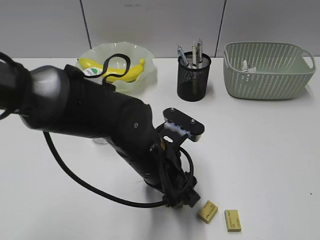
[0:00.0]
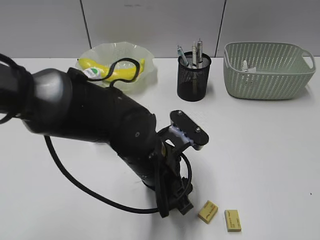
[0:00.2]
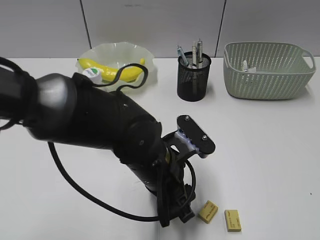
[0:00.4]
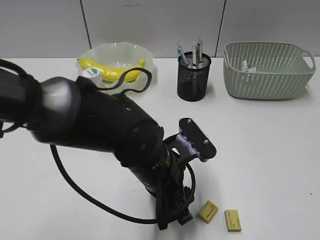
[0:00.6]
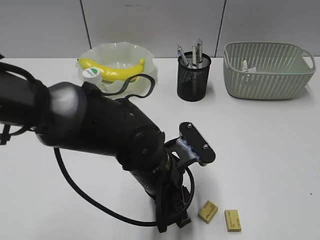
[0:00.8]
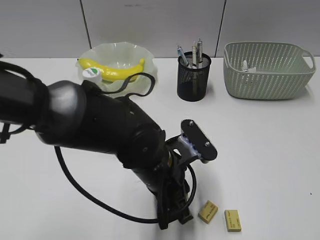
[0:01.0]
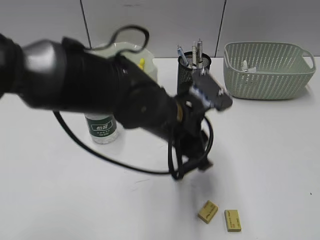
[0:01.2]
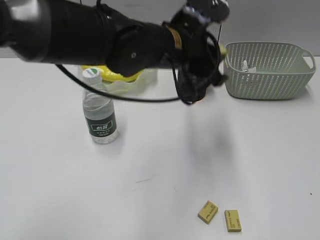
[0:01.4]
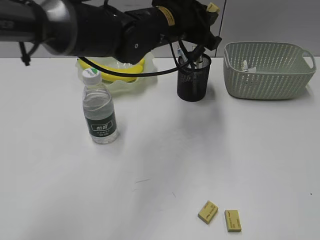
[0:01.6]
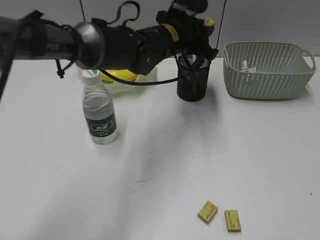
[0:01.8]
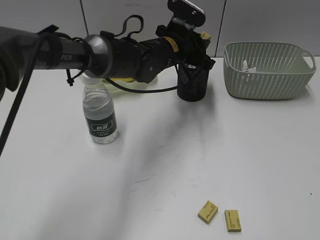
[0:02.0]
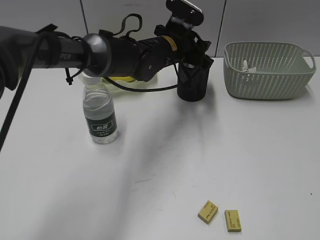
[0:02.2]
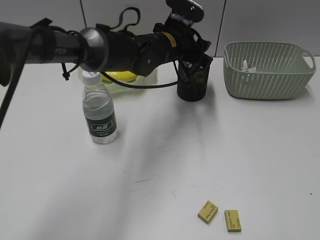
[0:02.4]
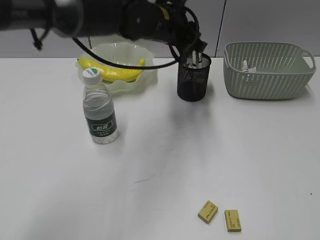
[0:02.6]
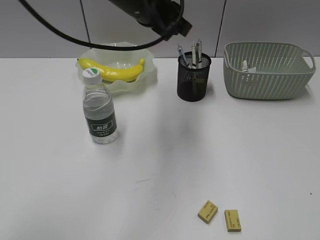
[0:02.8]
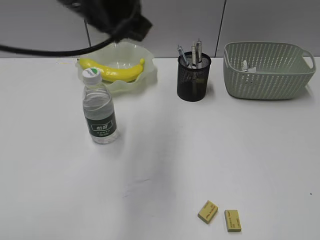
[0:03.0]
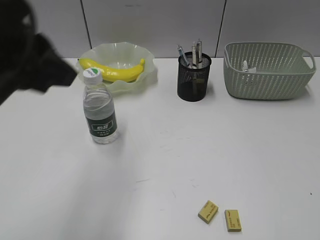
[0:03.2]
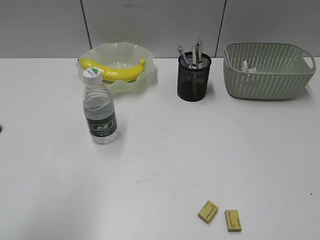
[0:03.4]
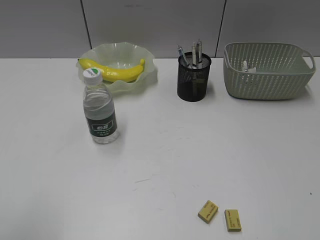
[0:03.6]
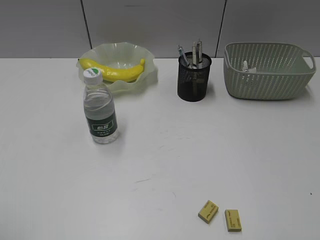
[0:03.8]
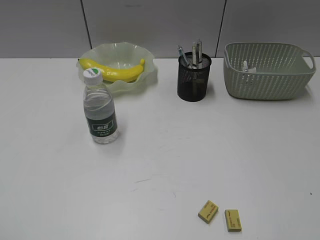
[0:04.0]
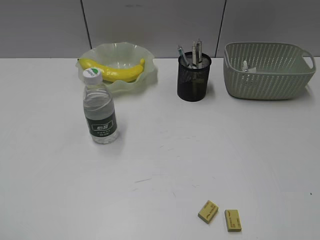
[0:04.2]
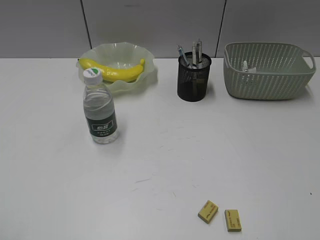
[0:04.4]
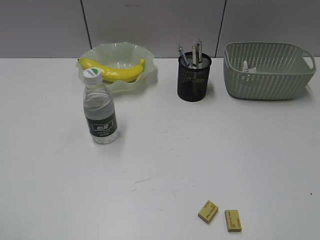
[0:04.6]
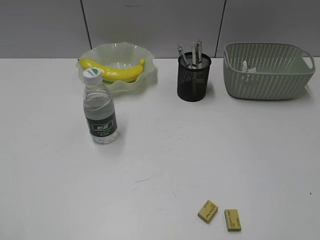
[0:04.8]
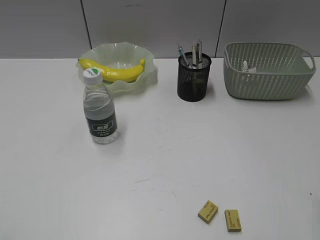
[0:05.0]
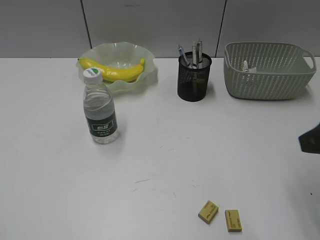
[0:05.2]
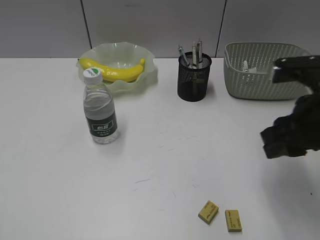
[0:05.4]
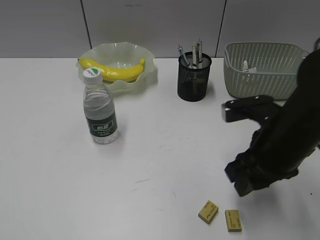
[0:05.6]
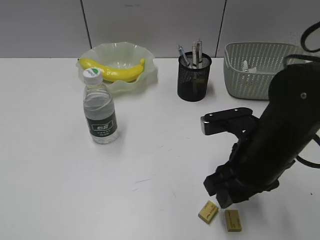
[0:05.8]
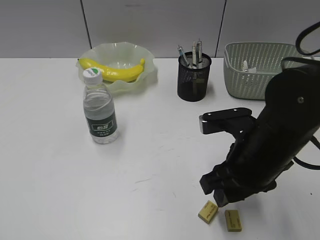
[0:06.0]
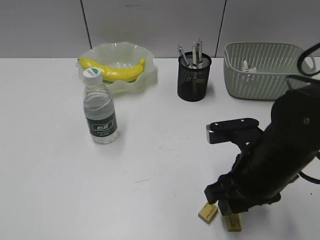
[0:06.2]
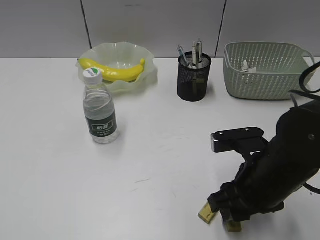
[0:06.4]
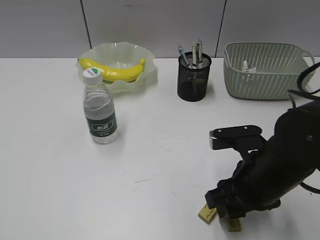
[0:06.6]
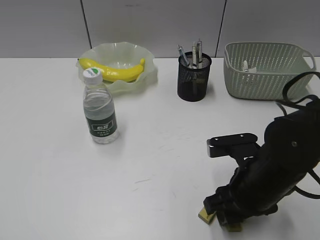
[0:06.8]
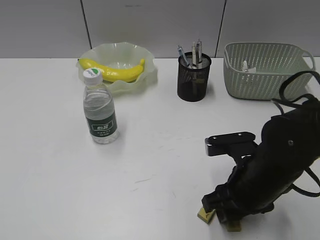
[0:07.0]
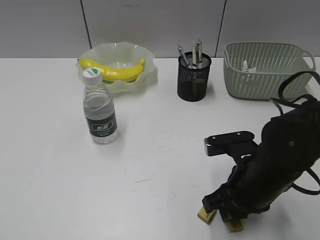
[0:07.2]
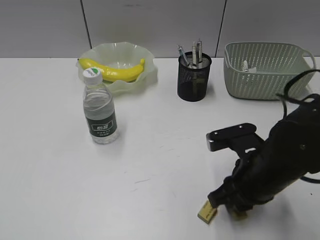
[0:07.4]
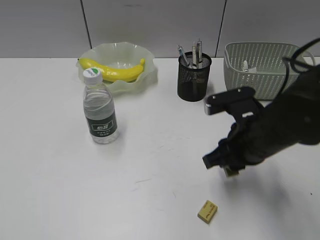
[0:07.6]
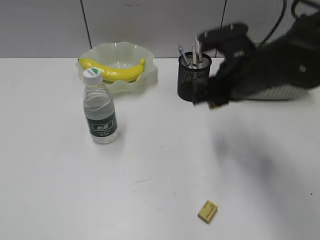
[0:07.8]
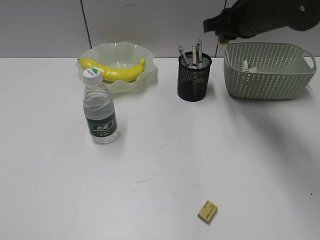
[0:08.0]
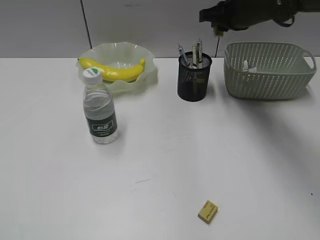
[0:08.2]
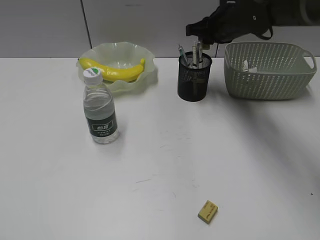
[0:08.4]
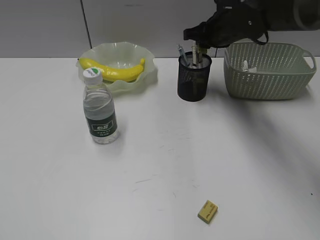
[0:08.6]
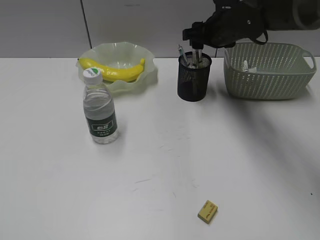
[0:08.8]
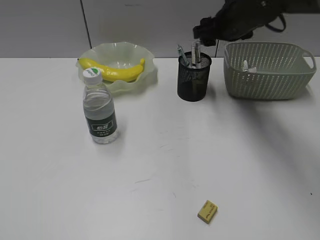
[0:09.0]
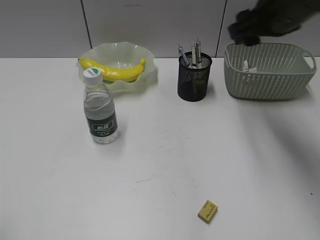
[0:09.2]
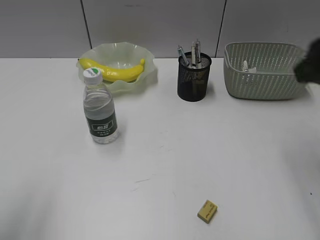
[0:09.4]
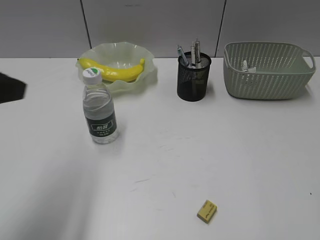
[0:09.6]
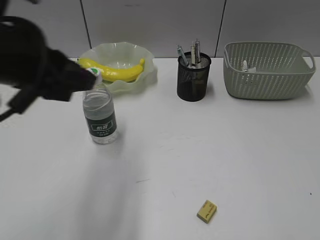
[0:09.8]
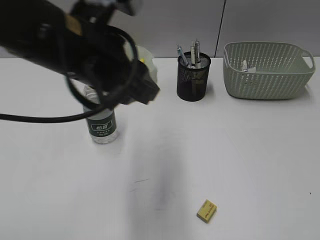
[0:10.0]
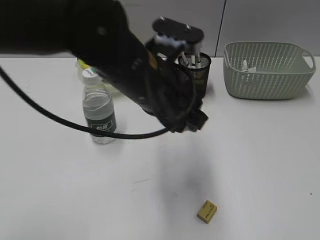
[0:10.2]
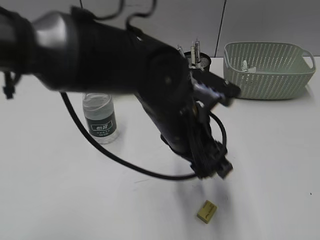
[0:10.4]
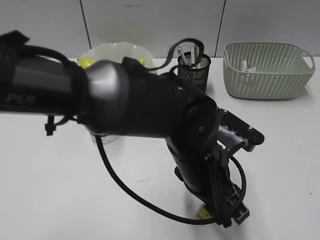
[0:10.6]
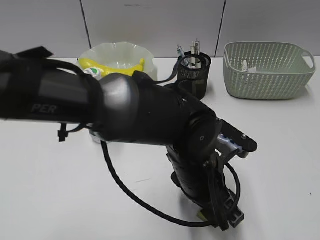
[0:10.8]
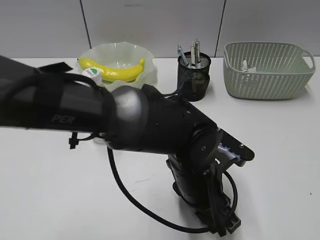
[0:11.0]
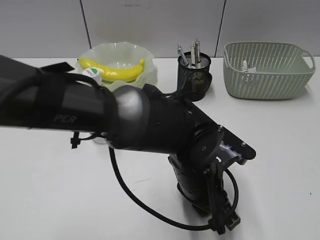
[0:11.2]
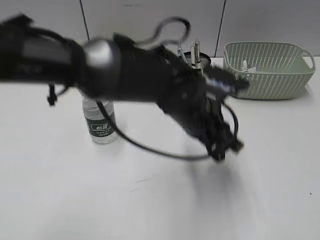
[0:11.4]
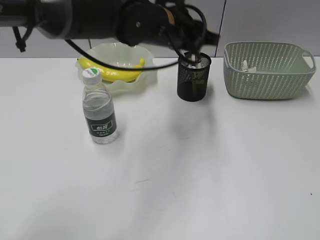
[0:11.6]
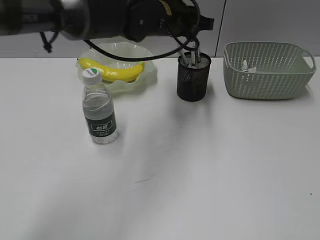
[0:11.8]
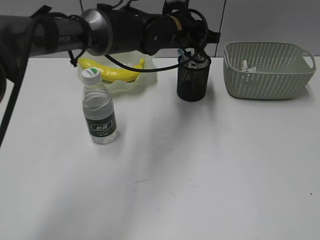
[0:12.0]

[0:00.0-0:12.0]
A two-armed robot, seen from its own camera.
Step, 0:01.0 to 0:02.4: Place the eraser in pen holder with left gripper.
Step, 0:02.6 to 0:07.2: Grasp the eraser with right gripper.
Step, 0:07.4 to 0:08.8: Place the eraser in pen holder with right gripper.
Step, 0:09.0 to 0:11.2: Grasp the eraser with left gripper.
0:00.0 to 0:01.6: The left gripper shifts some 20 cm forward and upward, and closes.
0:01.6 to 0:03.0: The left gripper shifts about 15 cm to the left, upward and backward, and opens, then closes once more.
0:03.0 to 0:04.4: The left gripper goes roughly 40 cm backward and to the left.
0:04.4 to 0:06.0: The right gripper goes roughly 30 cm forward, to the left and downward.
0:06.0 to 0:07.6: The right gripper closes its fingers.
0:07.6 to 0:09.0: The right gripper moves forward, about 20 cm, and opens up.
0:09.0 to 0:10.4: The left gripper heads to the right and forward, covering about 40 cm, and opens its fingers. Meanwhile the right gripper is displaced backward and to the right by some 50 cm.
0:10.4 to 0:12.0: The left gripper moves forward, roughly 20 cm, and closes.

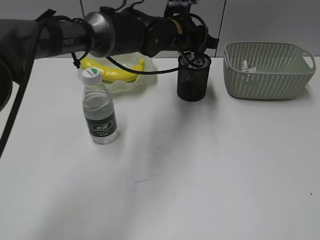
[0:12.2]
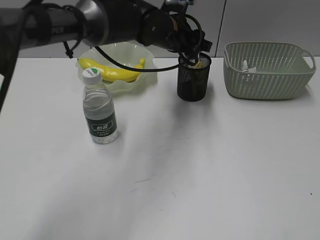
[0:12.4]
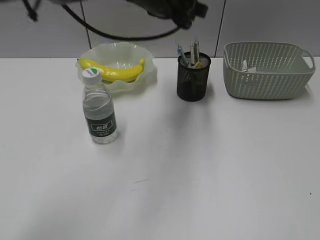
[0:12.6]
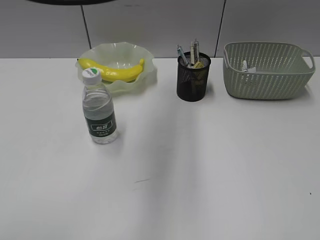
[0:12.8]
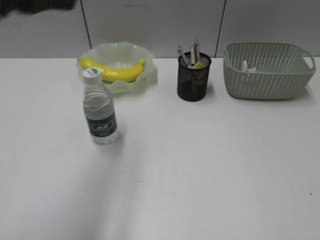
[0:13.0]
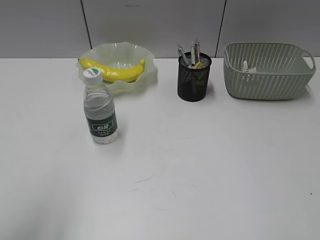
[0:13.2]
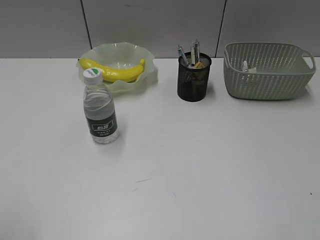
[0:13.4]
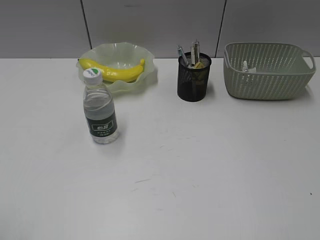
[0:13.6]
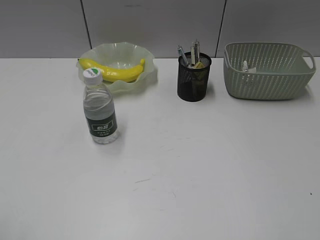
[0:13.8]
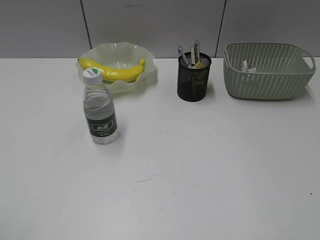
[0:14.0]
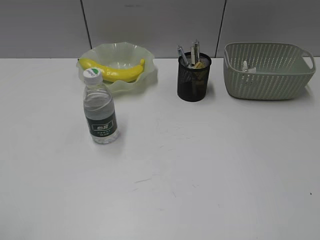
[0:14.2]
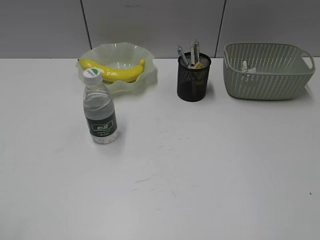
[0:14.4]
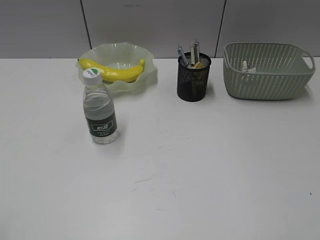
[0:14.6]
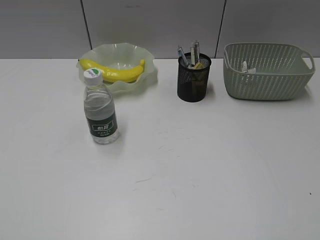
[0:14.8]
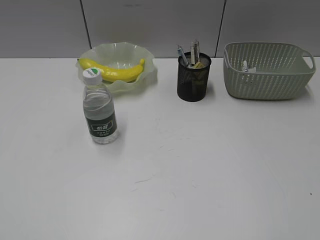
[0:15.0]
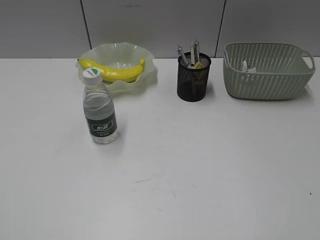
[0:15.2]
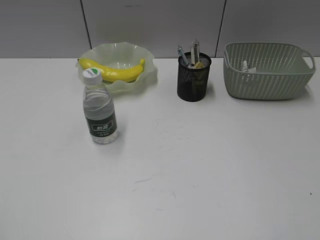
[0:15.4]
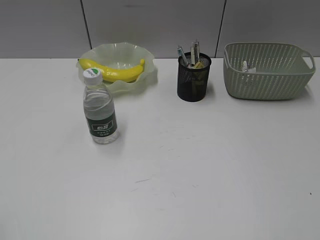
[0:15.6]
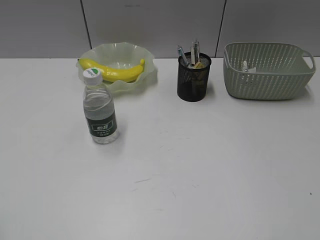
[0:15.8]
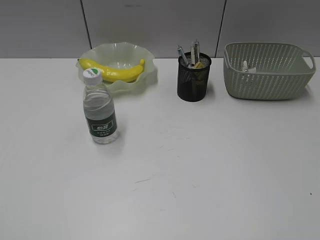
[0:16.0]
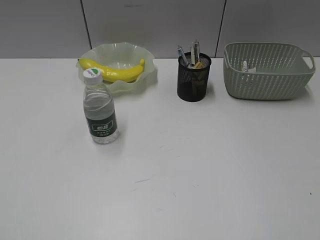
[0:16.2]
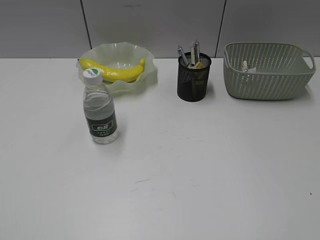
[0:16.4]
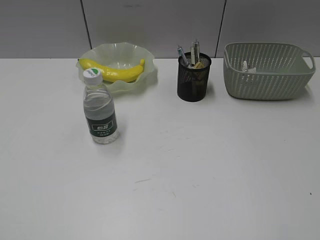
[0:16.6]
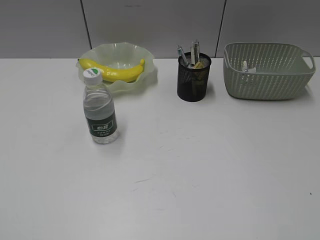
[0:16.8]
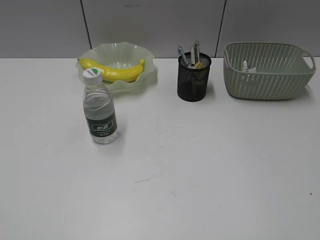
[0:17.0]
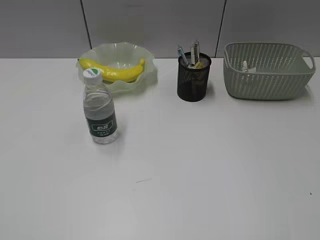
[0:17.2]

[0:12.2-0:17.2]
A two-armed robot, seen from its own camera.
0:12.2 to 0:13.8: The left gripper is displaced backward and to the left by some 60 cm.

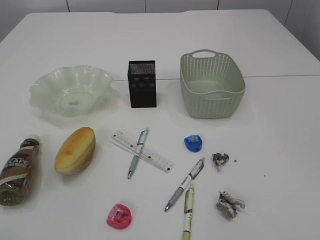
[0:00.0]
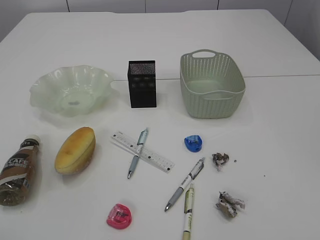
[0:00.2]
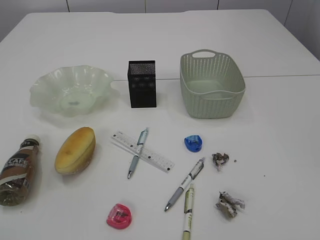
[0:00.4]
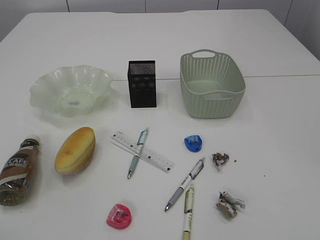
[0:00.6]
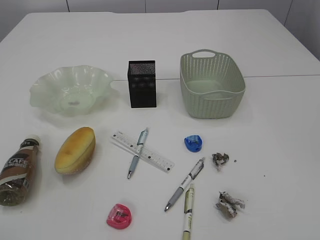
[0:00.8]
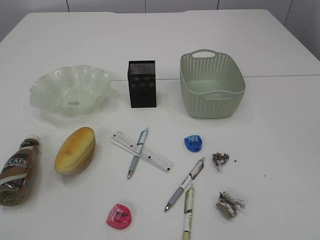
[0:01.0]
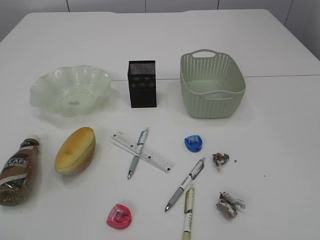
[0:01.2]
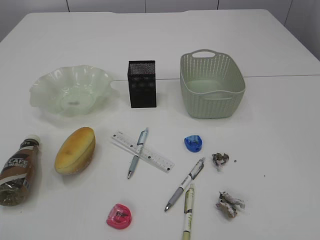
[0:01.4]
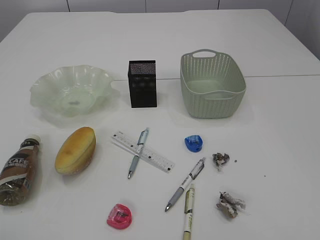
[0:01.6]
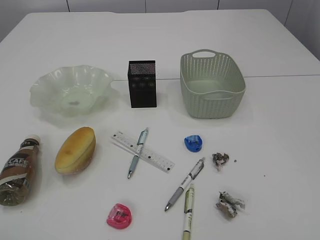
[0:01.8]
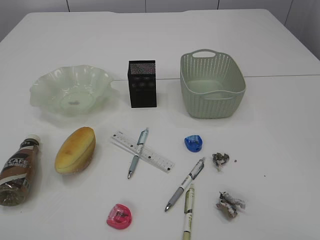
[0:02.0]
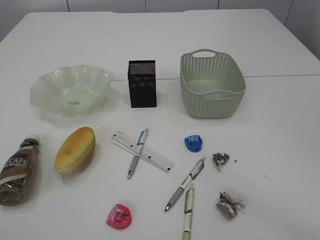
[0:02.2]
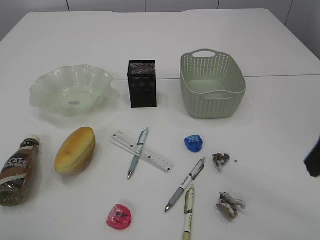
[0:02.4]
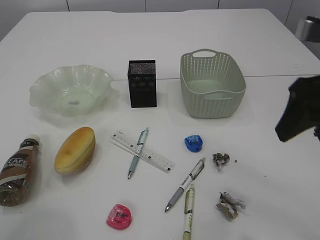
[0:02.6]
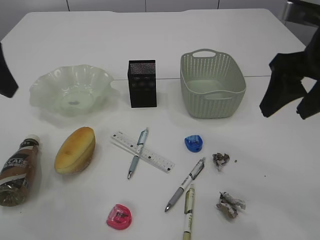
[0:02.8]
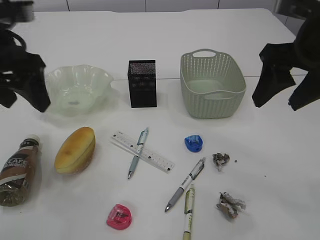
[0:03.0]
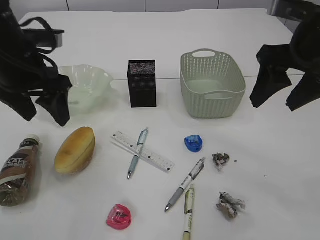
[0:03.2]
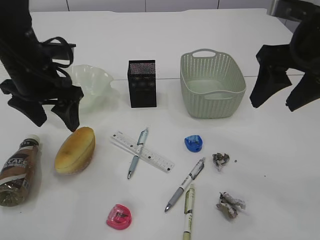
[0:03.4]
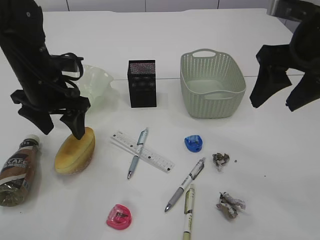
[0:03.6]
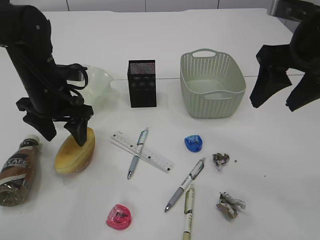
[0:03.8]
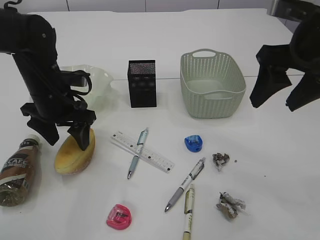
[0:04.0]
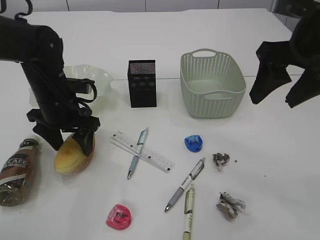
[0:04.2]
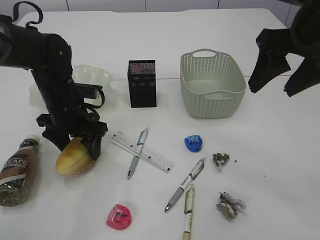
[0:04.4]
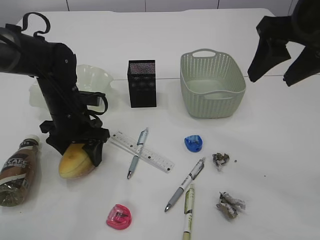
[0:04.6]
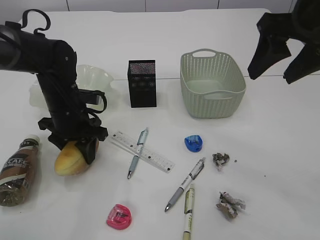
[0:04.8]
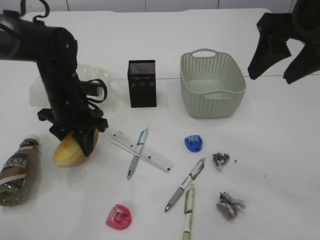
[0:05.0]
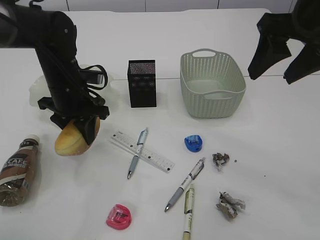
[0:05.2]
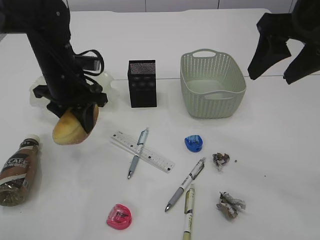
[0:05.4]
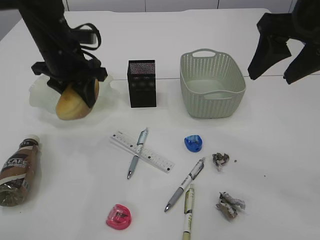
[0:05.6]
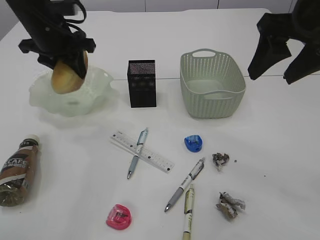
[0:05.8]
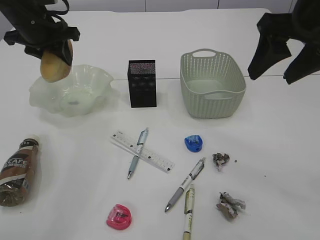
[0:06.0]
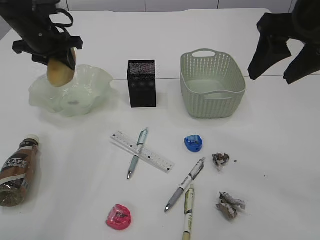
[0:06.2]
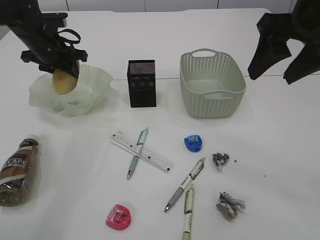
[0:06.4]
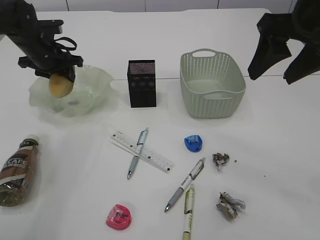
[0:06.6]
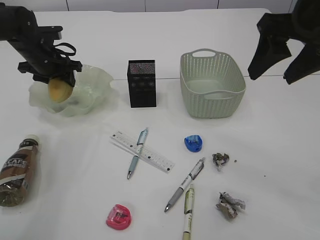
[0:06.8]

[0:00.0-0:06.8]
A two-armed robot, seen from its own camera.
0:01.4 to 0:02.8: The grippers both shift forward by some 30 cm.
0:02.8 to 0:04.0: The left gripper is displaced downward and forward by about 20 cm.
0:04.0 to 0:05.4: The left gripper closes up.
0:05.4 to 0:06.8: The left gripper heads forward and to the left, covering approximately 15 cm.
